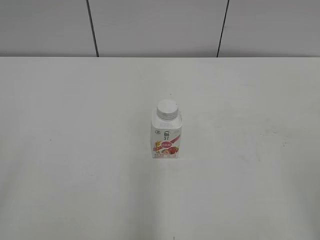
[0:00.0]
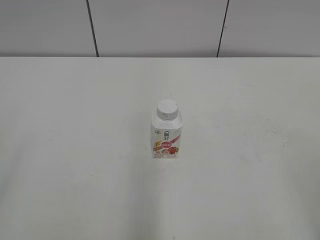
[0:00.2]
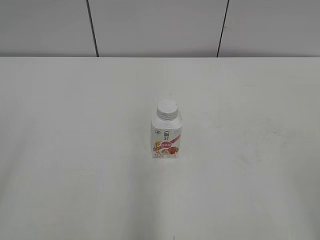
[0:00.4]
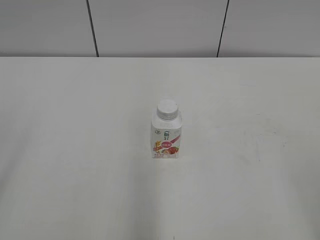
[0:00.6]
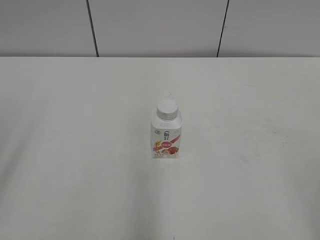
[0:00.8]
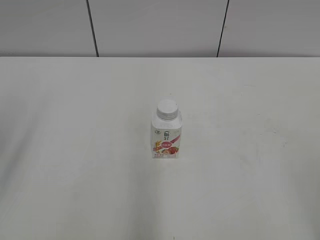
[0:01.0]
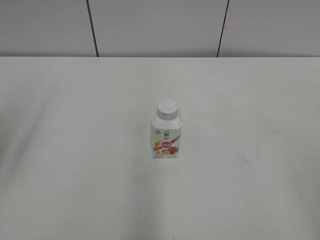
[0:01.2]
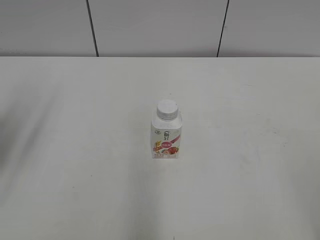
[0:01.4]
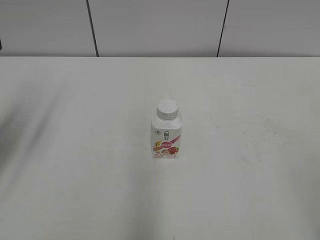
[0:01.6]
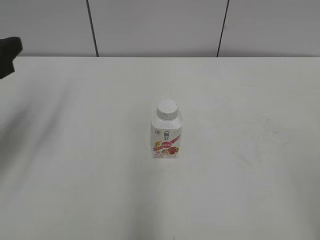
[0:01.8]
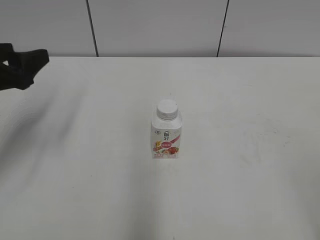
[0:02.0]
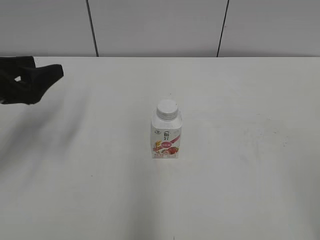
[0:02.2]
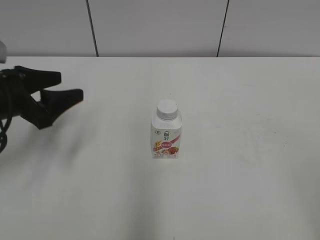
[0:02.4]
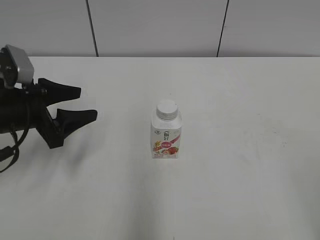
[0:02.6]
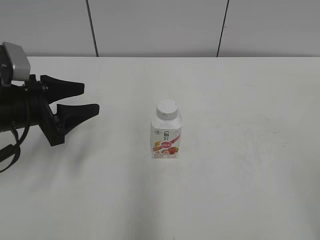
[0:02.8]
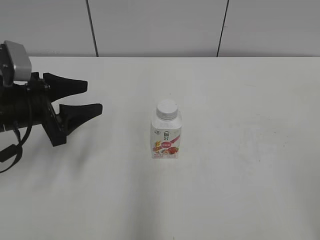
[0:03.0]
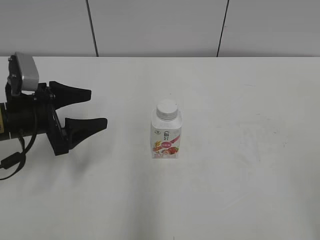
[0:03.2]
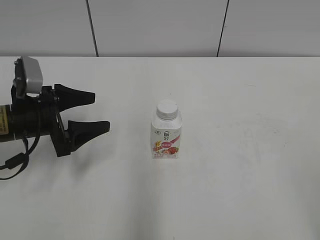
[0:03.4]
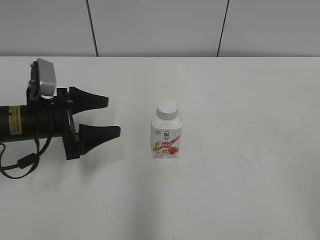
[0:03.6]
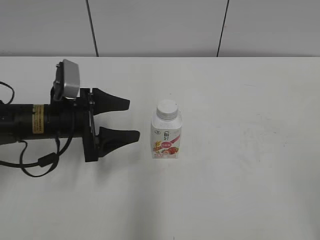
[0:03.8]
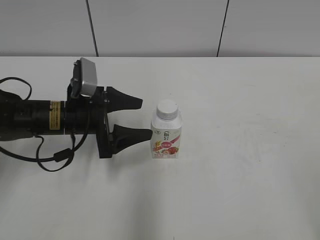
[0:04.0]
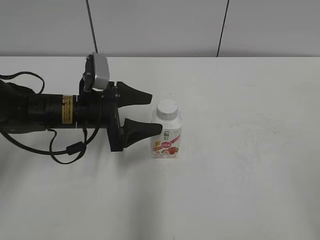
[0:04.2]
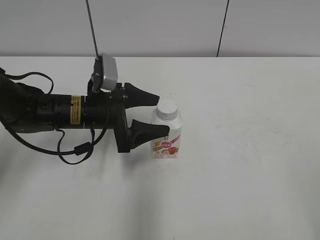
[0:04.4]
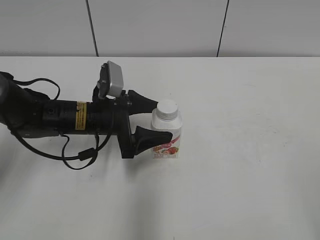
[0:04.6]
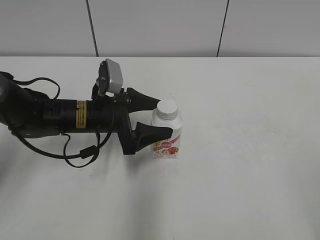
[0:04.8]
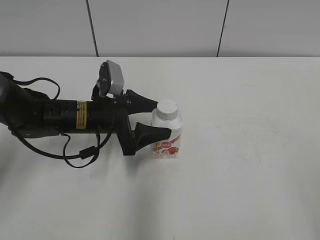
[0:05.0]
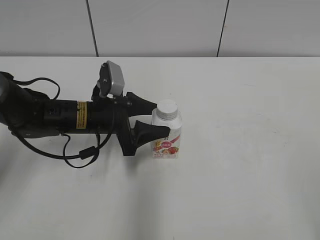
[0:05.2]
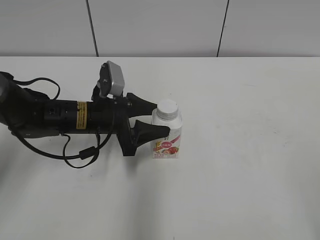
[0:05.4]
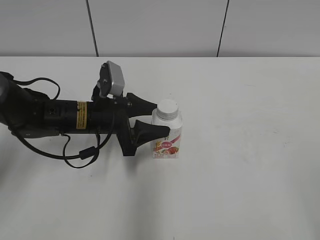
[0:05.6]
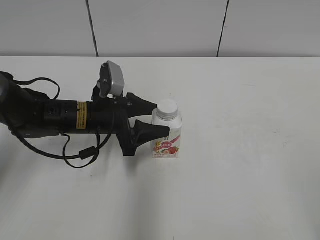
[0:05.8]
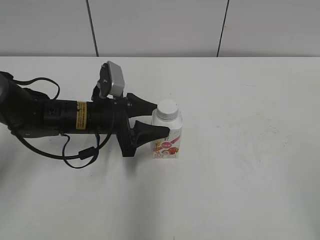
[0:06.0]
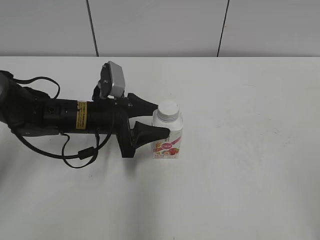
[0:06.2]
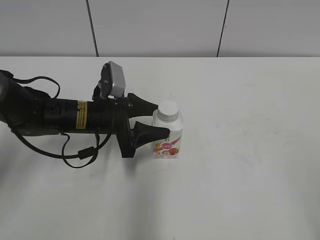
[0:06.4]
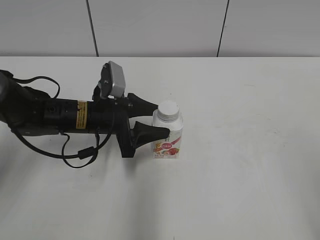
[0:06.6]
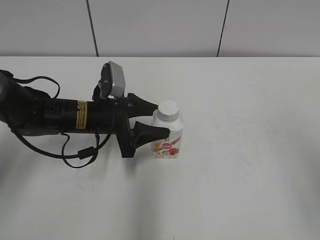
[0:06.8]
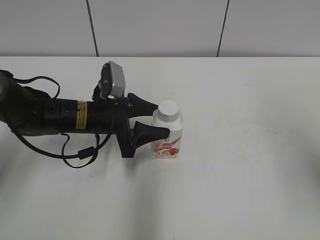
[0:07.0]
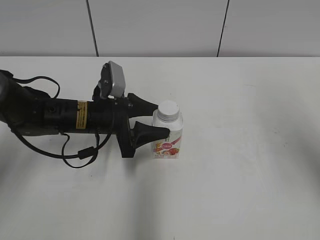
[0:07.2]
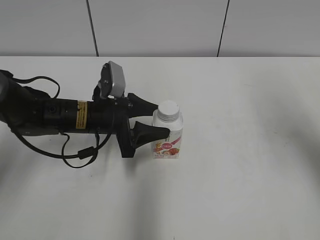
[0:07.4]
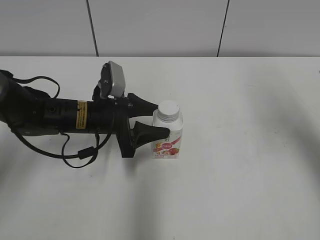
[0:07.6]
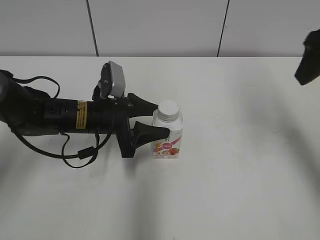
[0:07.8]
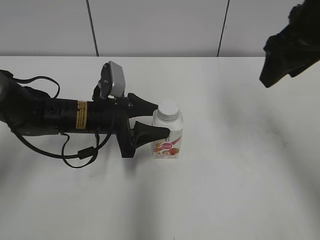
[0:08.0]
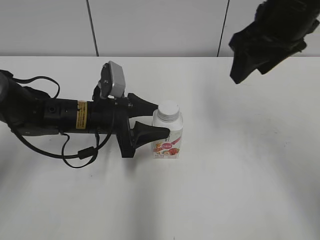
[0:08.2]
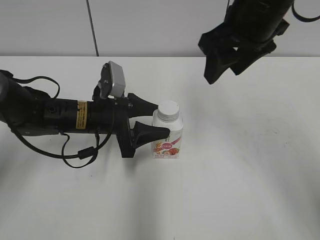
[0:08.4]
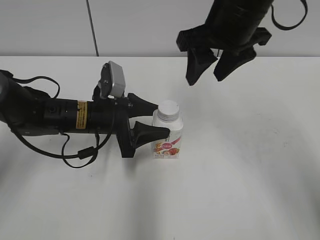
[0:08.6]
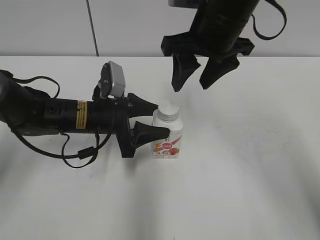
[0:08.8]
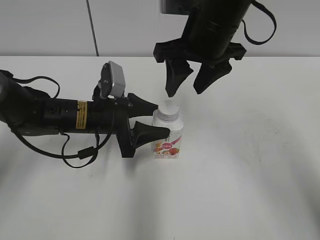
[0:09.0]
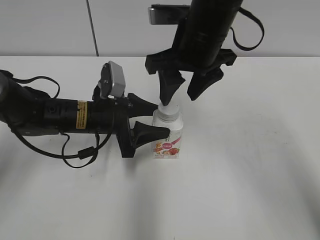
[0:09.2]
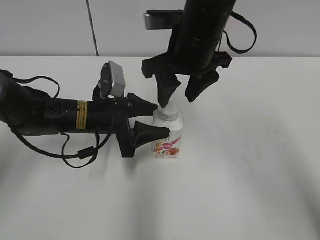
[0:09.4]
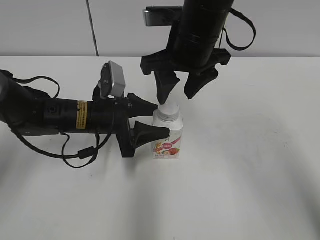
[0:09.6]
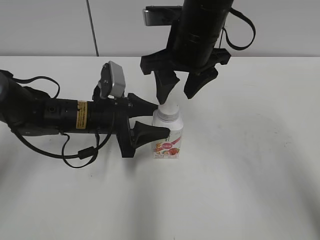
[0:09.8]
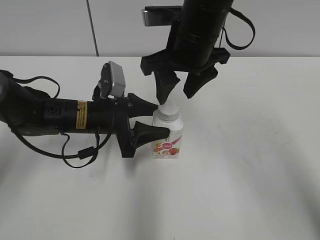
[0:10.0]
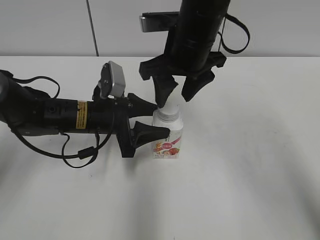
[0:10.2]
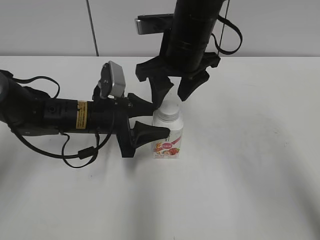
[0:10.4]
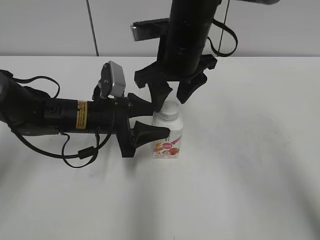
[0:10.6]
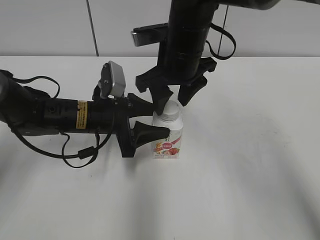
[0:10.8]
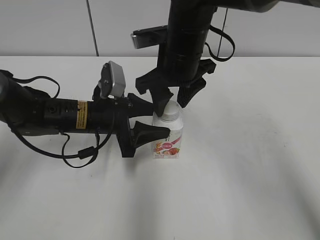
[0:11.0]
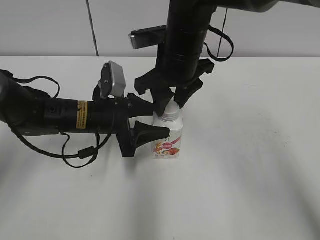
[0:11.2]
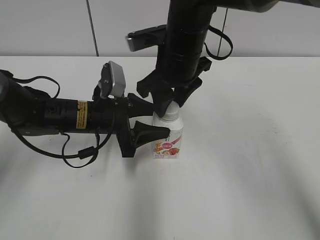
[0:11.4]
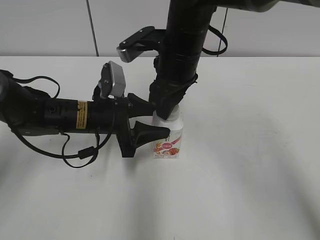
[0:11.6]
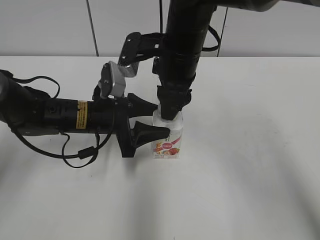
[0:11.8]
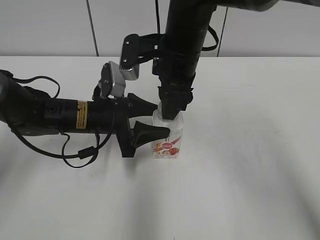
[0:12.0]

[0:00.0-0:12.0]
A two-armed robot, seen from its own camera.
Step, 0:00.0 to 0:06.4: Grab the Yili Changqing with the left hand.
0:00.0 to 0:01.6: The left gripper moves forward, about 25 cm.
0:01.6 to 0:03.0: The left gripper travels downward, to the right and forward by roughly 15 cm.
0:03.0 to 0:04.4: The left gripper moves to the right, about 10 cm, and opens its fingers.
0:04.4 to 0:06.0: The left gripper closes.
0:06.0 to 0:07.6: The right gripper is displaced forward by approximately 30 cm, and closes its fingers.
0:07.6 to 0:09.0: The right gripper shifts roughly 20 cm to the left.
0:09.0 to 0:10.4: The grippers move only a little.
0:10.4 to 0:12.0: The right gripper closes.

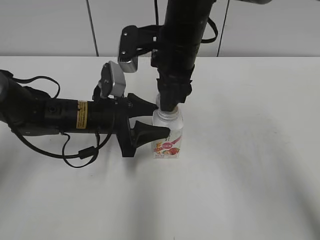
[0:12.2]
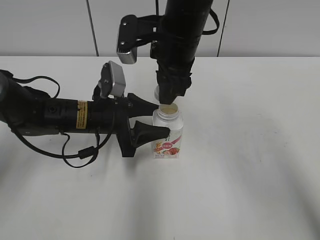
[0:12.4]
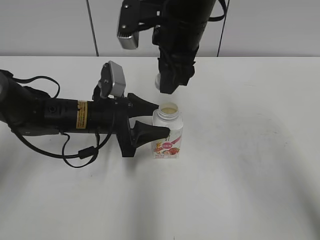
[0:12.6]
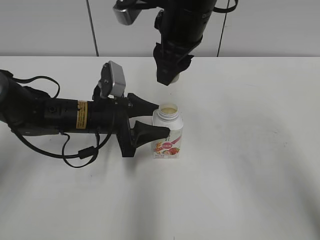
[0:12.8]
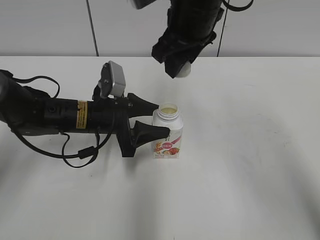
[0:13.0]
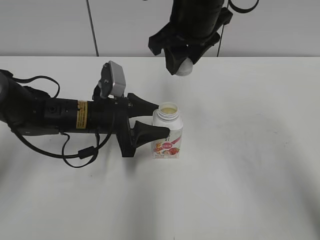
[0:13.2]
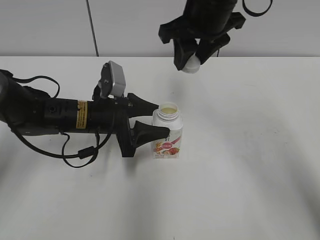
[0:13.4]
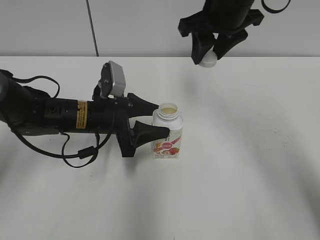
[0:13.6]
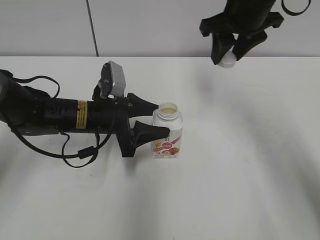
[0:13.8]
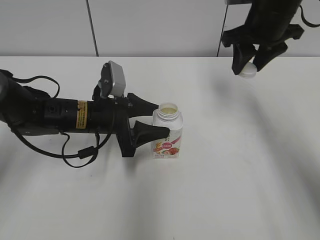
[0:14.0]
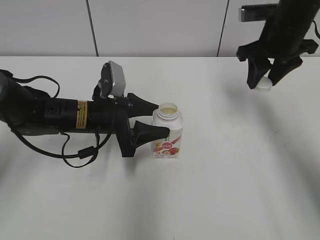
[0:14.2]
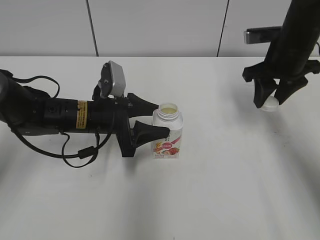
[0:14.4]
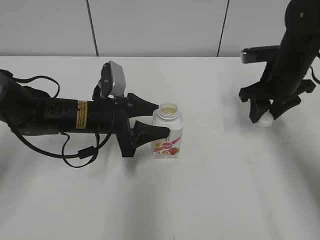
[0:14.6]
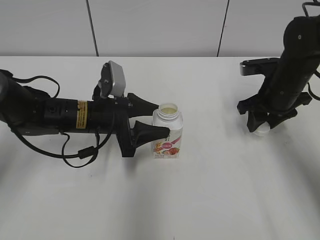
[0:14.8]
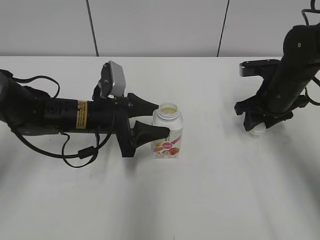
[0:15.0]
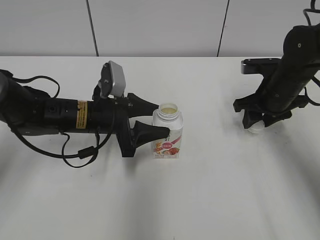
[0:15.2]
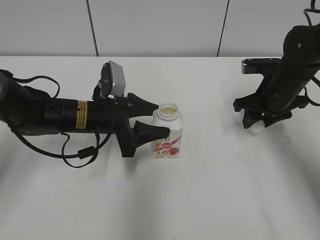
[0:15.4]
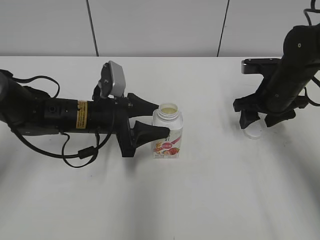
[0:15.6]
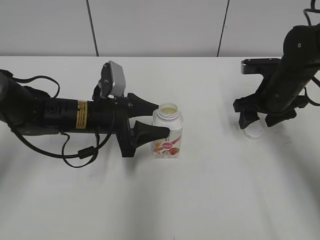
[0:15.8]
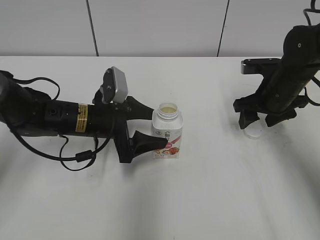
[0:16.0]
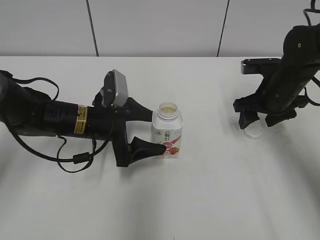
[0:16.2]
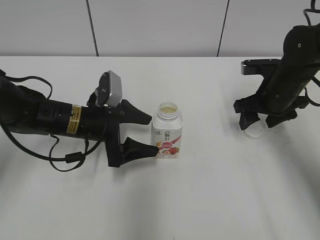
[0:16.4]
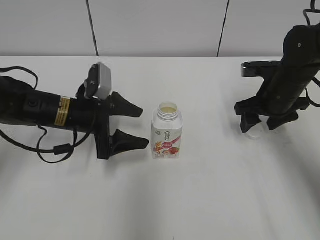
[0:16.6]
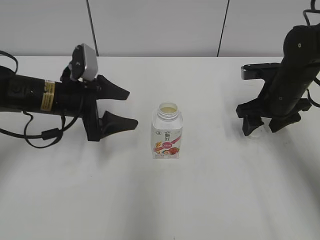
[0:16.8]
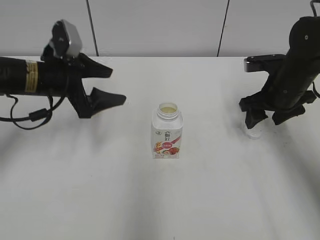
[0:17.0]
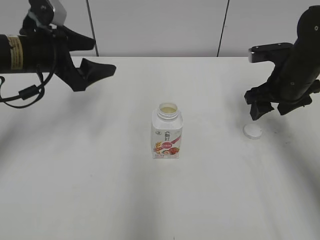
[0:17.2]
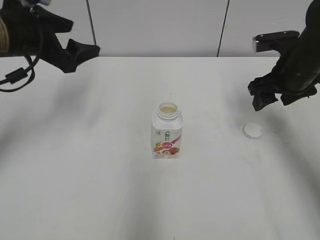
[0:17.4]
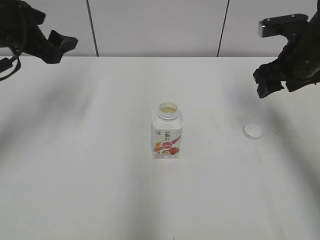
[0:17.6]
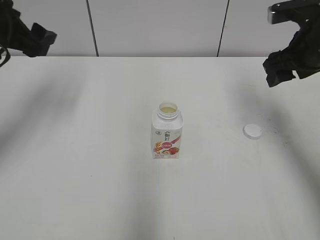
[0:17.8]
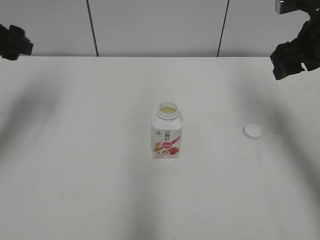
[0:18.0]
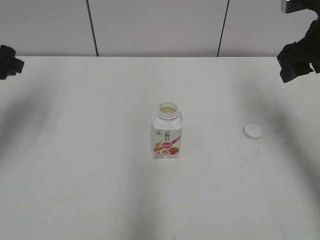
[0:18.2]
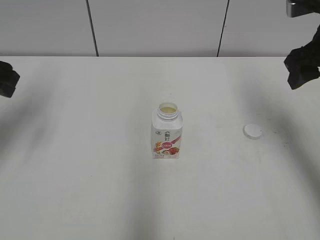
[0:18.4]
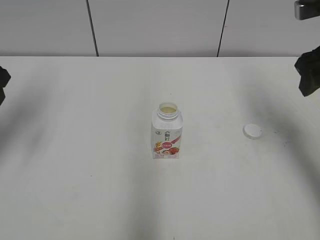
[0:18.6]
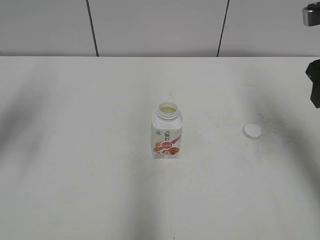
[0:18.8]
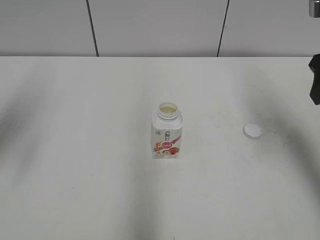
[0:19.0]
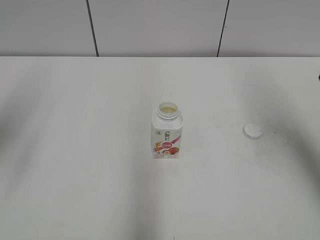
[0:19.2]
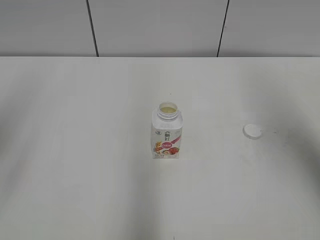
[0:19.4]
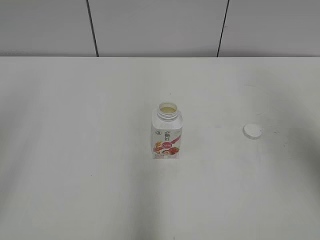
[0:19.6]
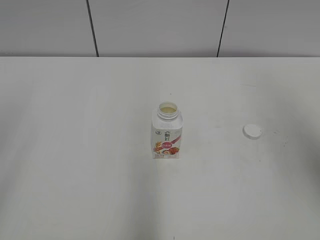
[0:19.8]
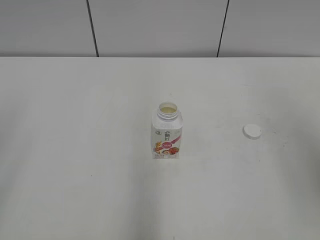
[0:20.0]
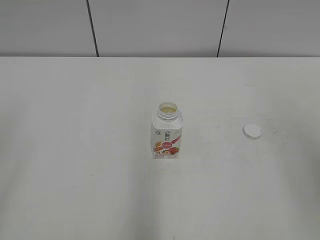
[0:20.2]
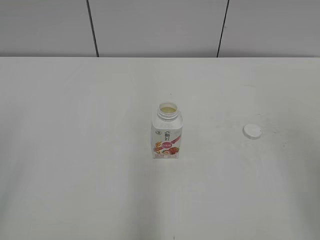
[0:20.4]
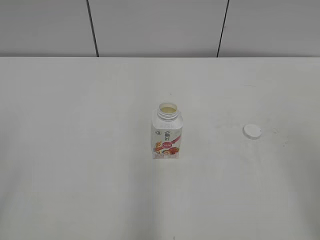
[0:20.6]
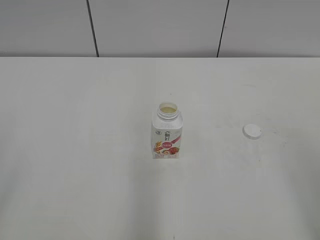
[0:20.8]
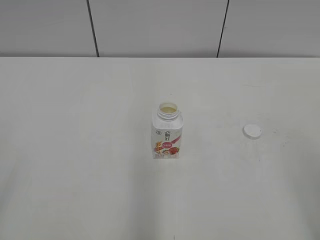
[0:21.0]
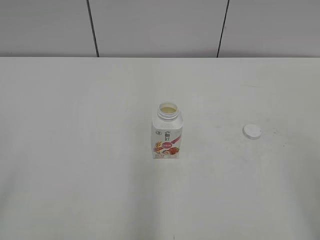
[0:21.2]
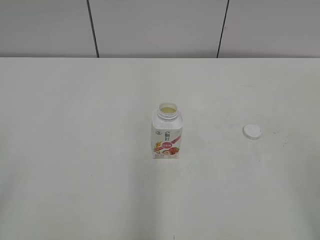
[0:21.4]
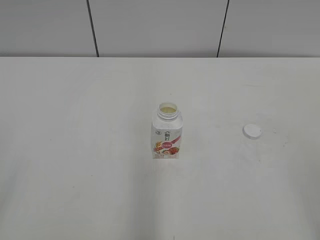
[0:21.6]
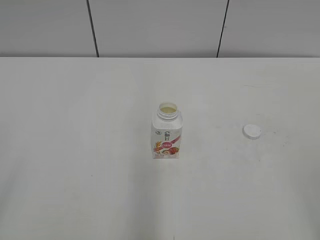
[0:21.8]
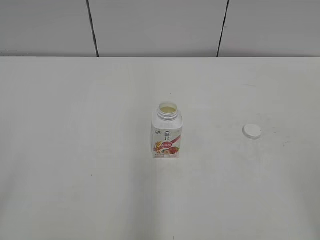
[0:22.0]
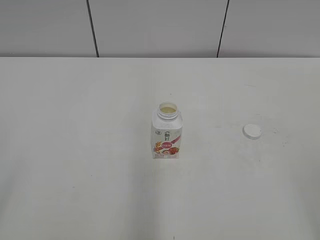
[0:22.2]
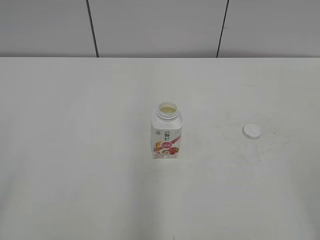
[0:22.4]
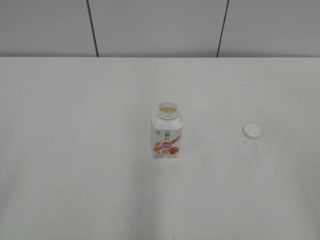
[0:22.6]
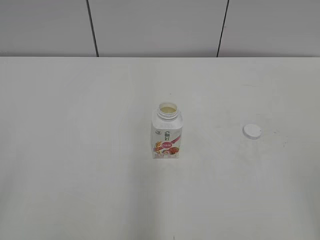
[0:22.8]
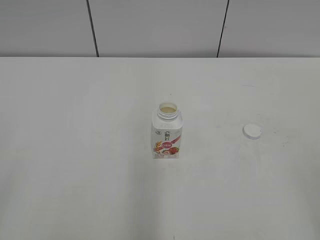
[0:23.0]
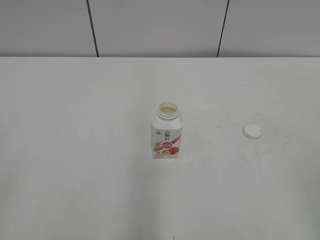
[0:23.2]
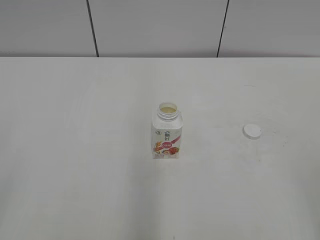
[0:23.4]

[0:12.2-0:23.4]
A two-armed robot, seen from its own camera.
Step, 0:12.4 to 0:15.4: Place the bottle cap on the right.
0:12.2 to 0:13.8: The right gripper moves to the right, about 10 cm.
0:13.8 to 0:15.4: The right gripper is displaced downward and to the right by some 15 cm.
0:15.4 to 0:17.0: The right gripper opens; the left gripper heads to the left and upward, covering some 10 cm, and opens its fingers.
0:17.0 to 0:18.6: The right gripper is displaced upward and backward by about 15 cm. Meanwhile the left gripper goes approximately 15 cm upward and to the left, and closes up.
0:18.6 to 0:20.2: The right gripper shifts some 25 cm backward and upward, while the left gripper is displaced backward by roughly 25 cm.
0:21.8 to 0:23.4: Both grippers stay put.
